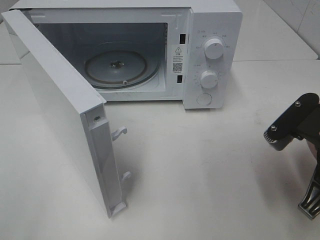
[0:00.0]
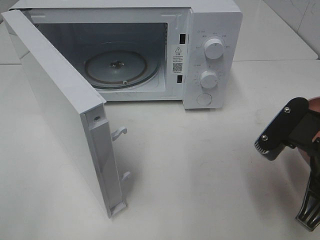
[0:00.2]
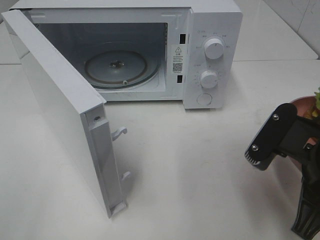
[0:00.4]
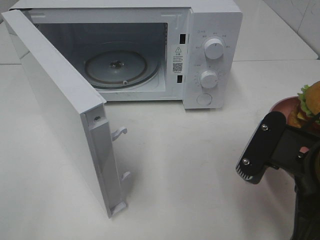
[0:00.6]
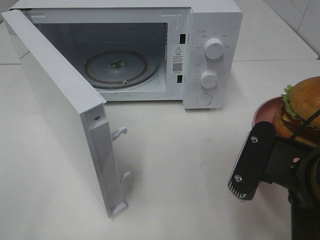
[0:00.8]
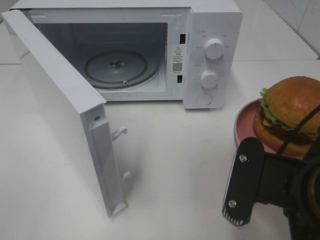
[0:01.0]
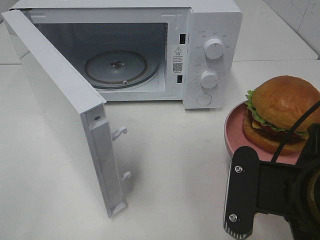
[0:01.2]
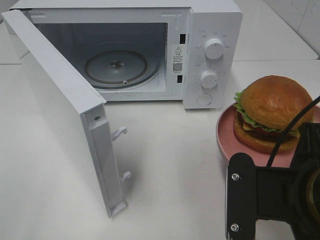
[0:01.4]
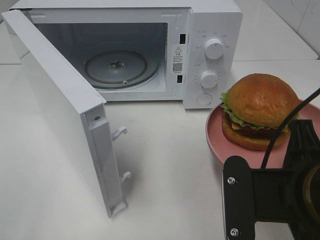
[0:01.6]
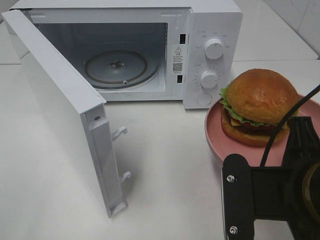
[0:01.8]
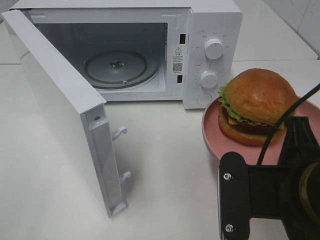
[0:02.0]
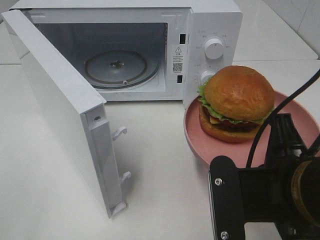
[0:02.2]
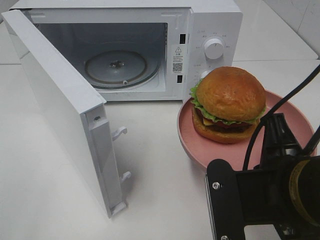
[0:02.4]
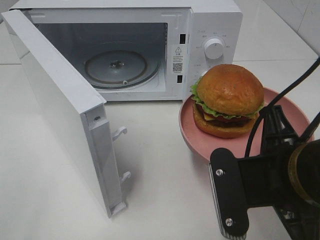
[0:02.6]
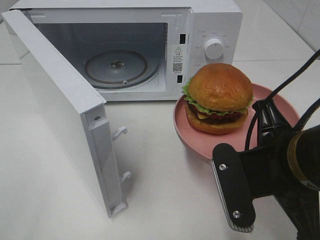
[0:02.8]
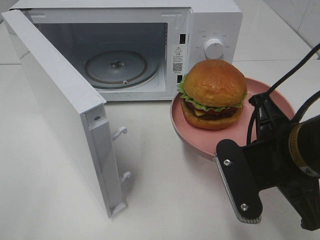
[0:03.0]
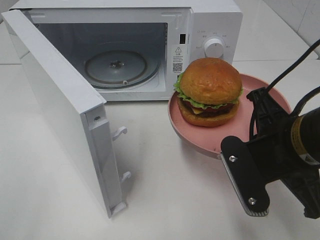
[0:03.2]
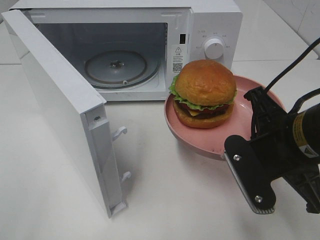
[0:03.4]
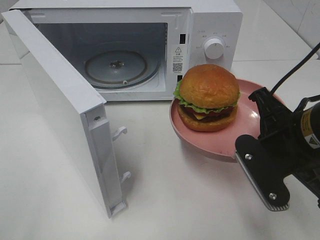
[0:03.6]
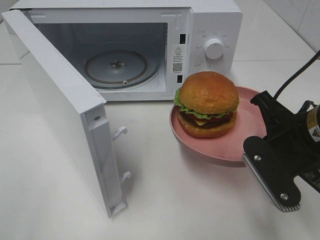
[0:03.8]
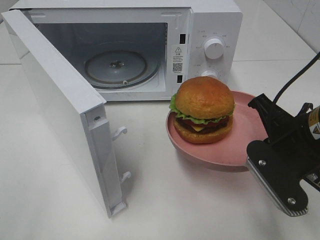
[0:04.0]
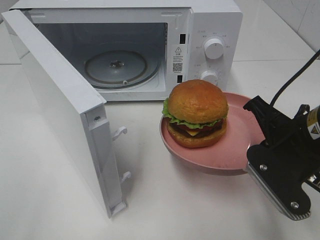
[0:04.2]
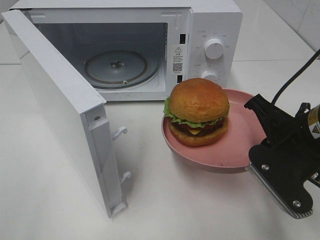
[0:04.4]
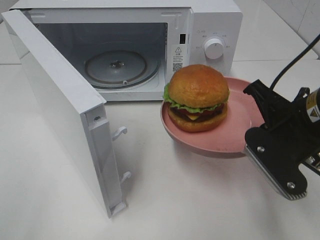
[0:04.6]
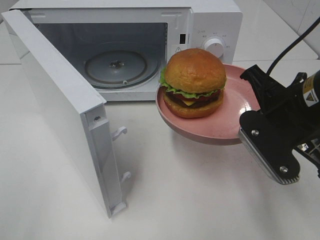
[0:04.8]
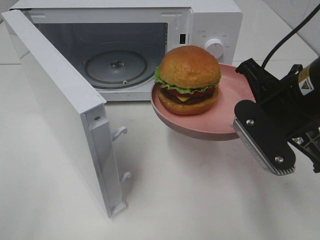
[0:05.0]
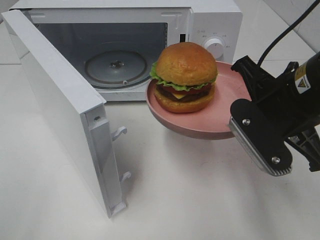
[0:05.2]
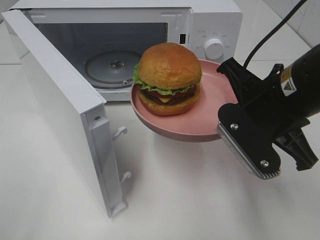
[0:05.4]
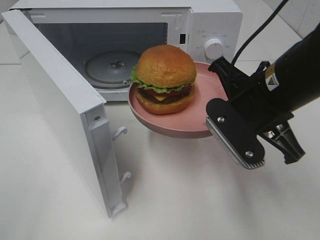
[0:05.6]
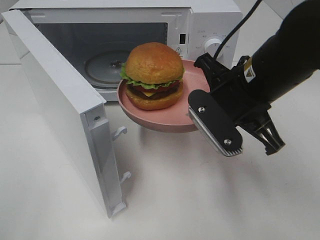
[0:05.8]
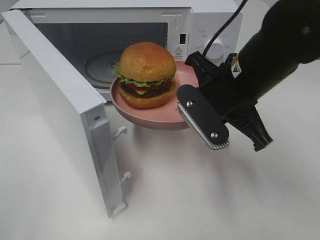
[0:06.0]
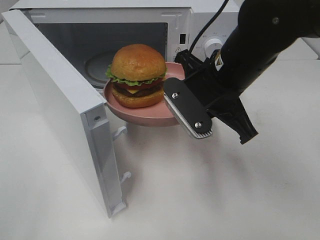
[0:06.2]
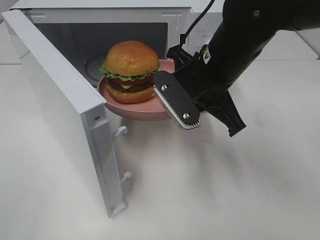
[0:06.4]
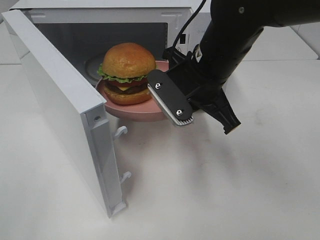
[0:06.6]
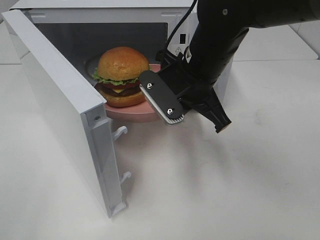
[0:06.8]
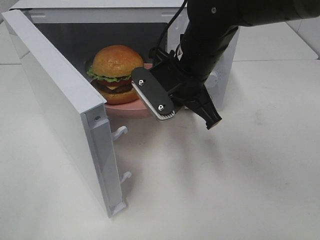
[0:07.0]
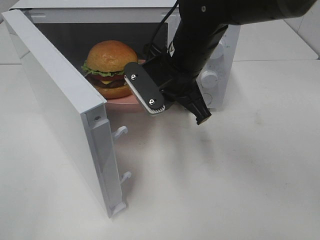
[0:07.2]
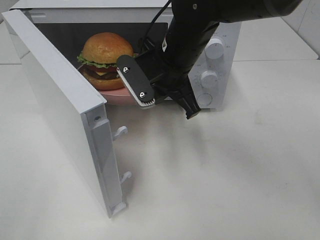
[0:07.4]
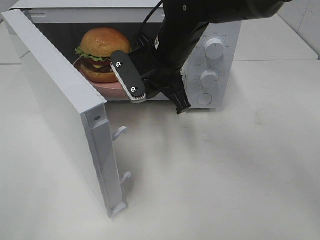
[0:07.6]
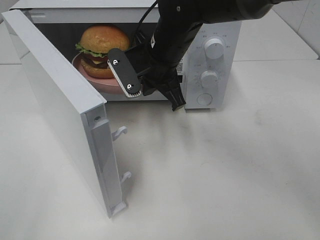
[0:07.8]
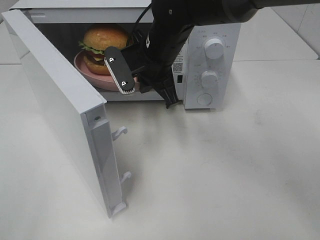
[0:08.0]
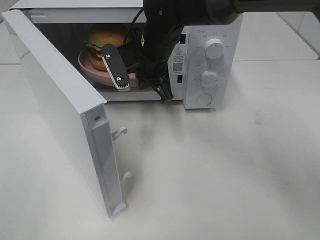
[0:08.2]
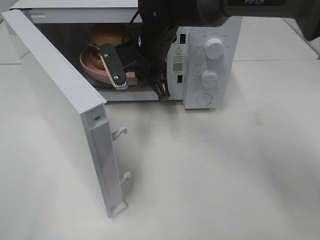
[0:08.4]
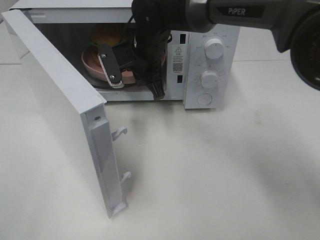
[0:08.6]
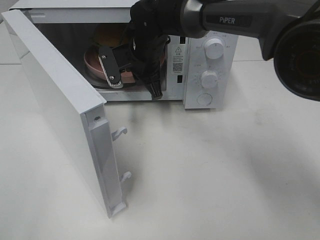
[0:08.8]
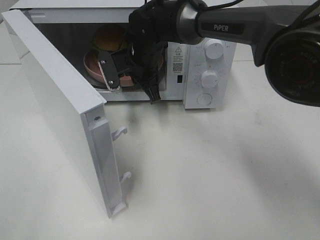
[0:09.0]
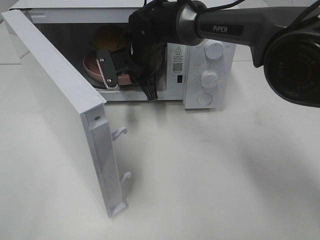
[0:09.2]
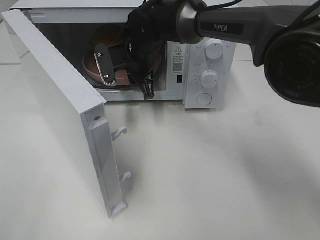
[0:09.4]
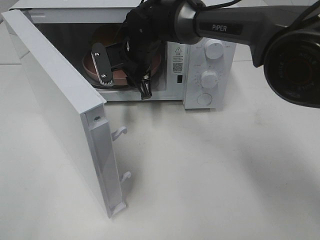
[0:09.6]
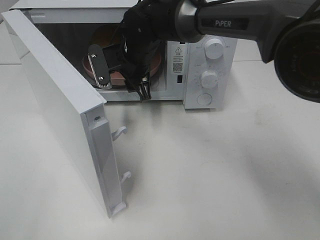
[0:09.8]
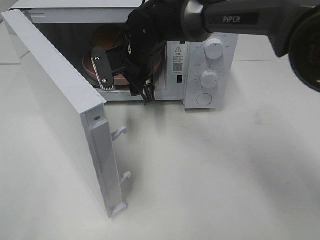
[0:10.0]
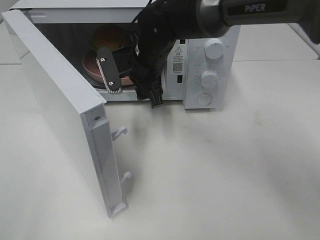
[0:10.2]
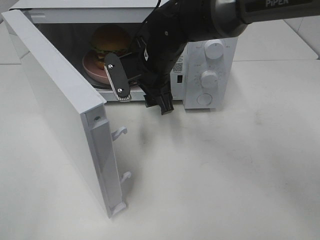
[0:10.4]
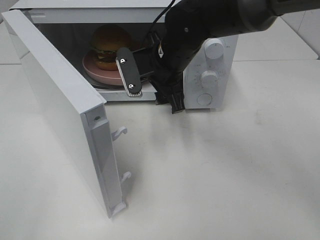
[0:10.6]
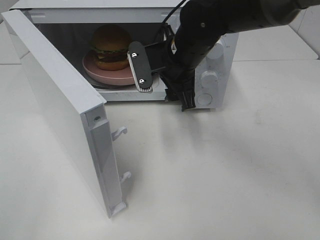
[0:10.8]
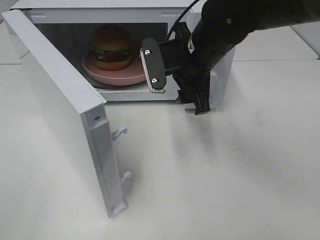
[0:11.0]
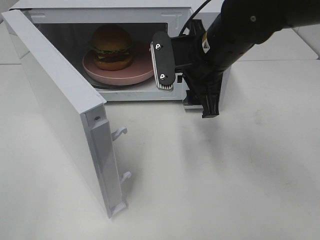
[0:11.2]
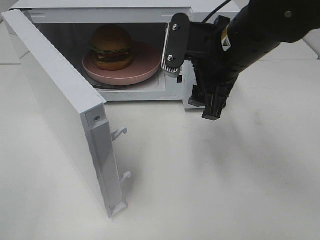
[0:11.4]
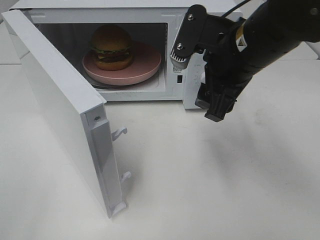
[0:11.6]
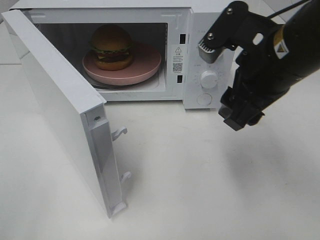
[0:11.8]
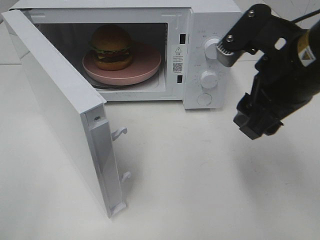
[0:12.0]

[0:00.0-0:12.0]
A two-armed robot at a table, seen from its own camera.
Task of the whole recording: Heat the burger.
Step, 0:00.0 to 0:09.8: Right hand: place the plate in the microwave.
0:00.0 to 0:01.6: The right gripper goes approximately 10 cm to the left and backward.
0:01.6 to 0:03.0: The right gripper goes some 5 cm forward.
0:03.0 to 0:04.4: The right gripper shifts by some 5 cm.
0:04.4 to 0:06.0: The right gripper shifts about 10 cm to the left and forward.
0:06.0 to 0:07.6: The right gripper moves forward and to the left, approximately 15 cm.
0:07.6 to 0:09.0: The right gripper shifts roughly 10 cm forward and downward.
0:09.0 to 0:10.4: The right gripper heads backward, covering about 5 cm, and opens.
0:10.4 to 0:12.0: The right gripper travels backward, to the right and upward by some 25 cm.

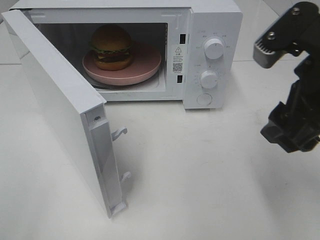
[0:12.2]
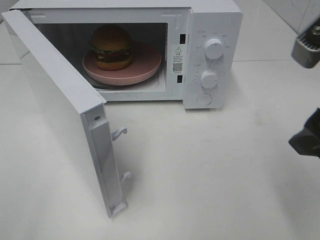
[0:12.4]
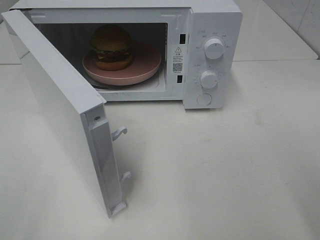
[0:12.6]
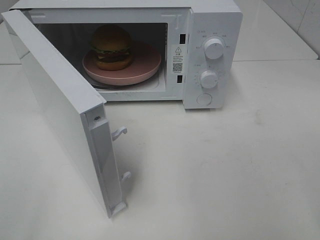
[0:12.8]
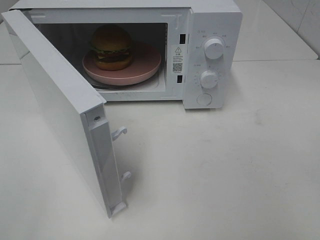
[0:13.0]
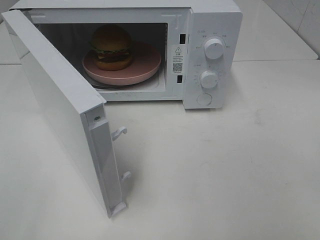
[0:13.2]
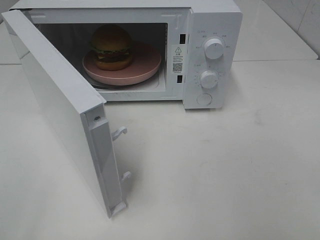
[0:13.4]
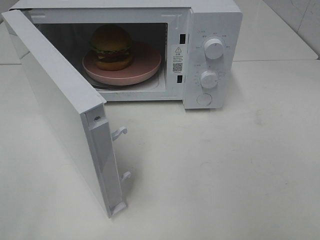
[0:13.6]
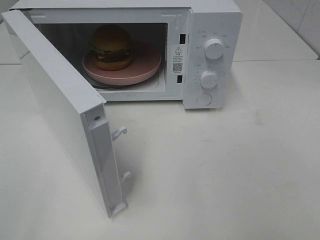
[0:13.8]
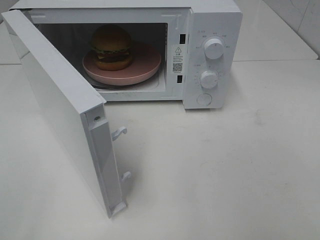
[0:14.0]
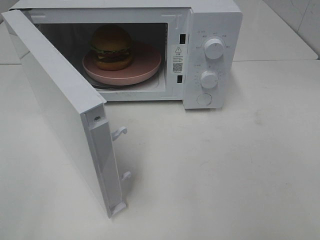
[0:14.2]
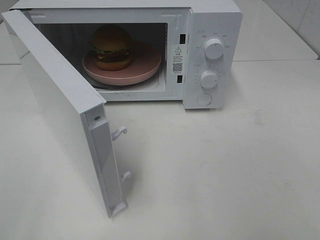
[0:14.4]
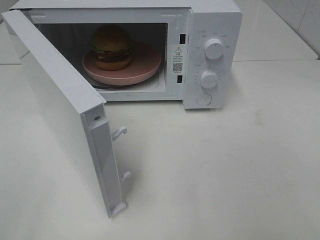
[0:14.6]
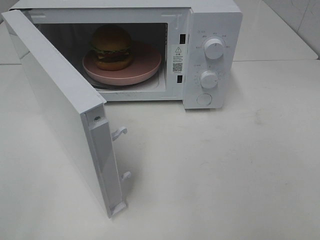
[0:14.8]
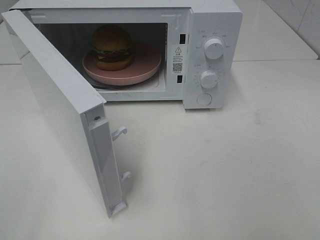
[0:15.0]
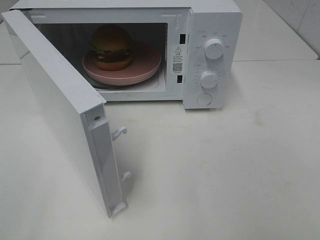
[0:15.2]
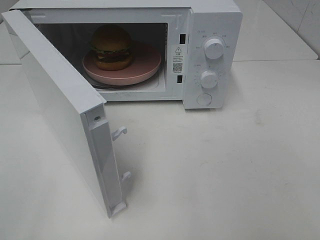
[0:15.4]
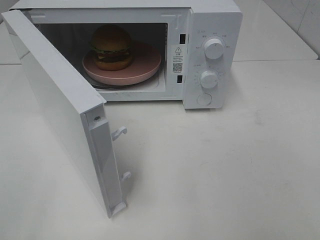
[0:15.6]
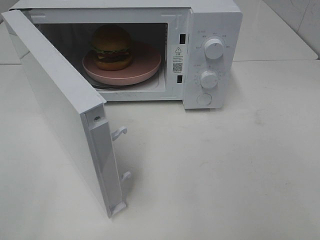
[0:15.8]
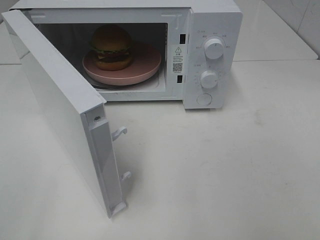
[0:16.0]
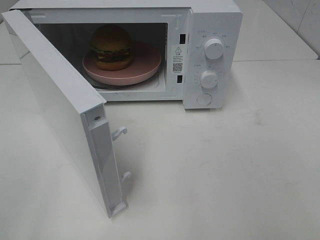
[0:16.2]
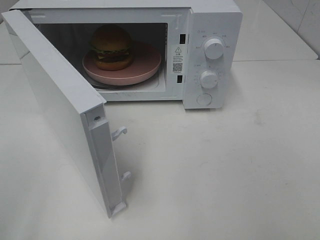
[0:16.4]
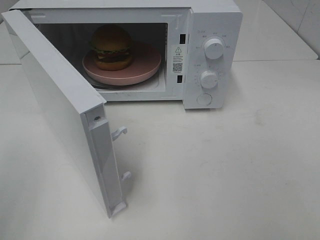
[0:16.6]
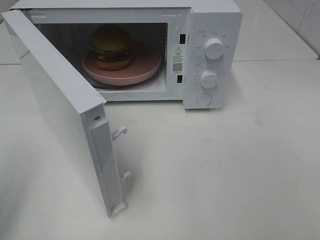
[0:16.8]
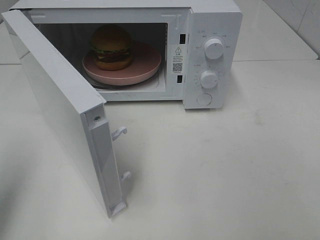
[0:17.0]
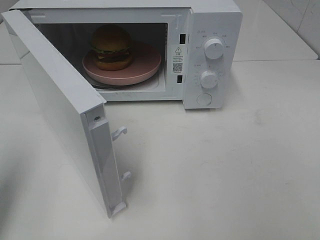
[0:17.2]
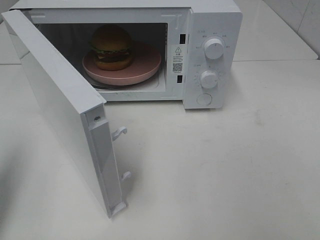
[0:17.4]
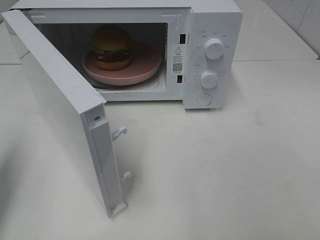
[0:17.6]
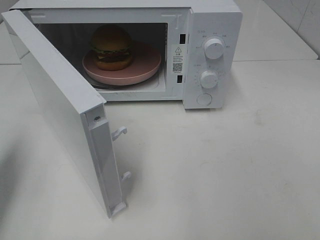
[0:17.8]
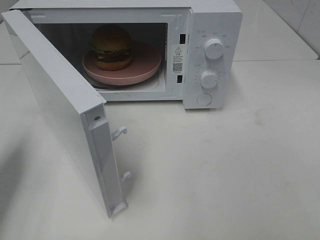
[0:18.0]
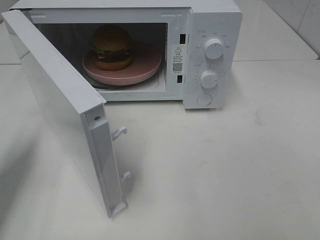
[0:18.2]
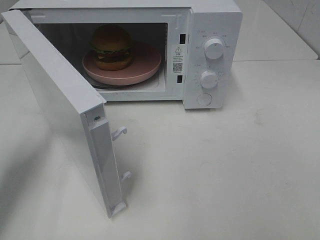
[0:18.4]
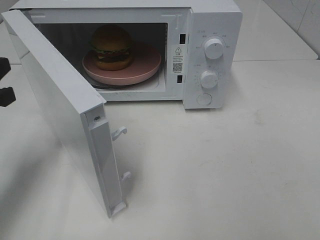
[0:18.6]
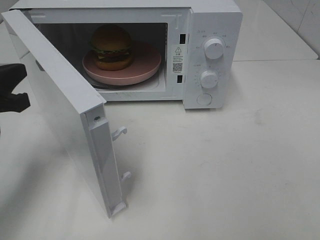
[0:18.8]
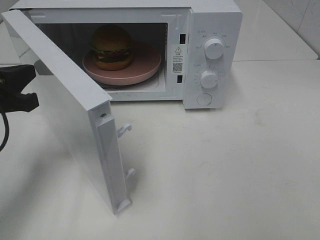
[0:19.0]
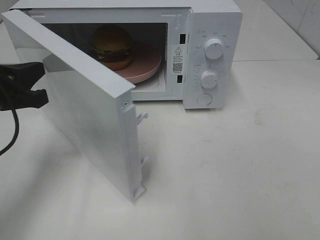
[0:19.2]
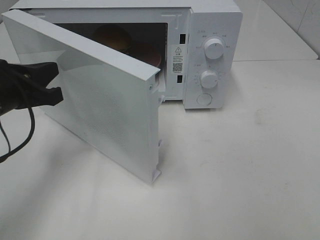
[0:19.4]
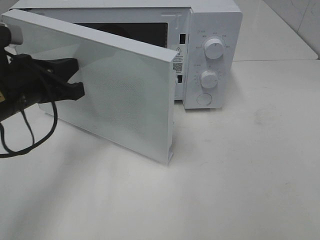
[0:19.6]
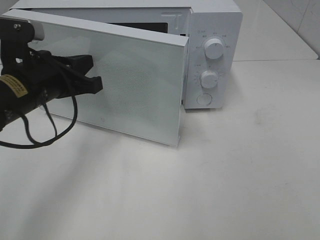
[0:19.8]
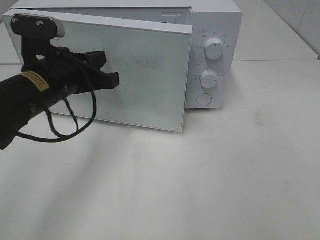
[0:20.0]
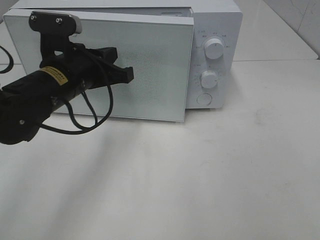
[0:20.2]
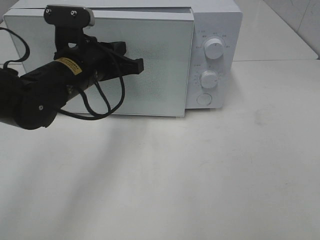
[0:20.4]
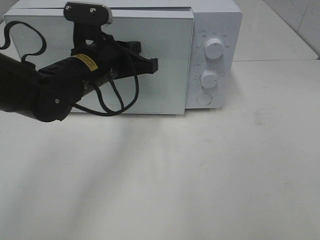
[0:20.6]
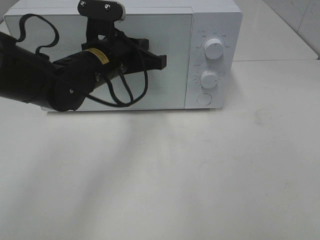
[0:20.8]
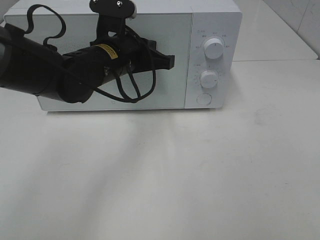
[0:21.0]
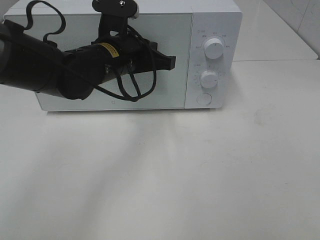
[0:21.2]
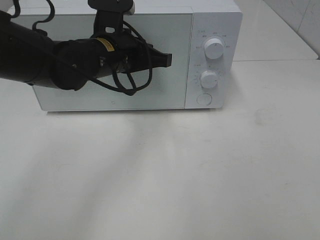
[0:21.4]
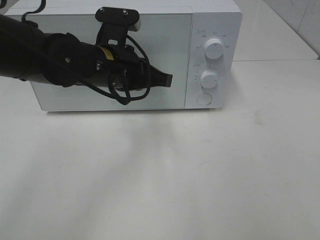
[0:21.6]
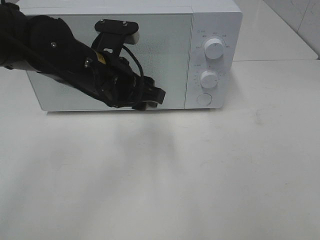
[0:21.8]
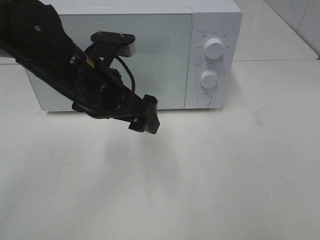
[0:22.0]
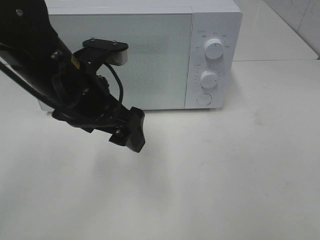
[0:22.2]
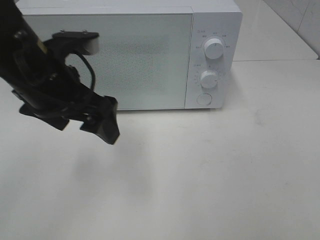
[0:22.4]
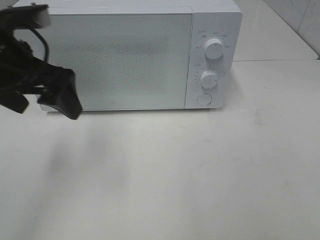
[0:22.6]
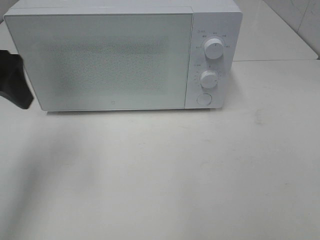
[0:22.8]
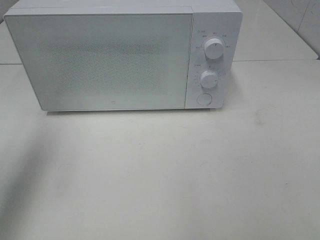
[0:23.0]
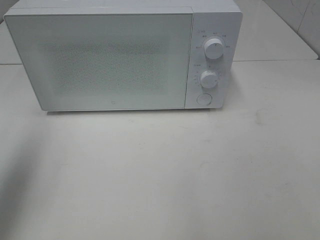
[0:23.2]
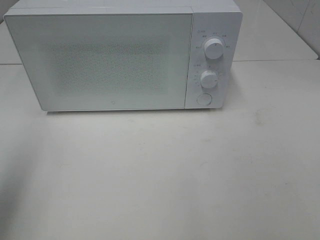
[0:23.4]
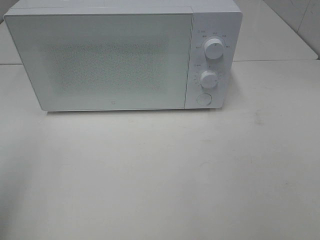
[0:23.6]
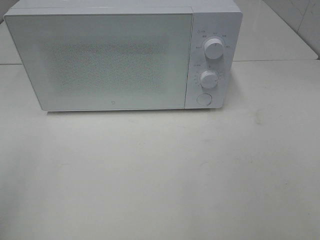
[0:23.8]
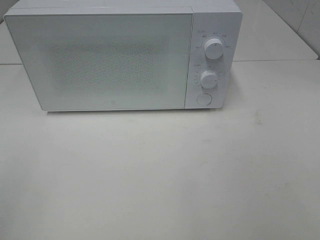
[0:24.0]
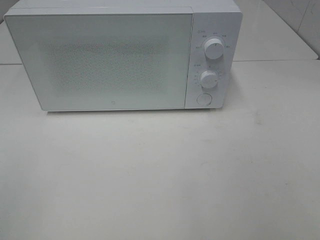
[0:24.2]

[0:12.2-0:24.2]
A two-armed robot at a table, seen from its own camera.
Task of the whole recording: Heat the burger.
Step, 0:12.2 to 0:21.6: Left hand: close the microwave door.
0:12.2 to 0:13.8: The right gripper shifts about 20 cm backward and to the right.
0:16.6 to 0:18.2: The left gripper is displaced forward and downward by roughly 20 cm, and closes.
0:18.2 to 0:19.8: The left gripper heads to the right, covering approximately 15 cm.
0:19.8 to 0:21.2: The left gripper moves to the right and forward, some 15 cm.
0:21.2 to 0:22.6: The left gripper shifts roughly 15 cm to the left, backward and upward, and opens its fingers.
0:22.6 to 0:24.2: The left gripper heads backward and to the left, covering roughly 30 cm.
